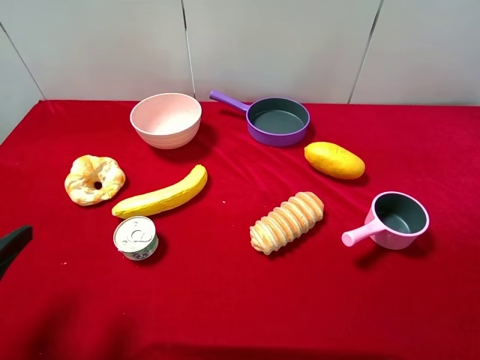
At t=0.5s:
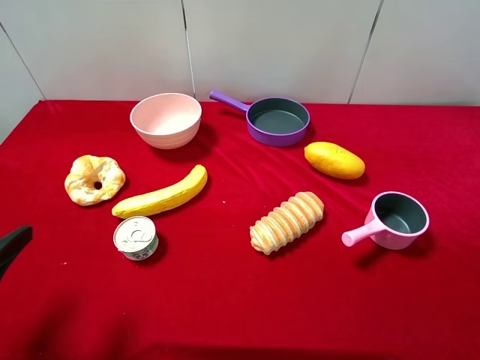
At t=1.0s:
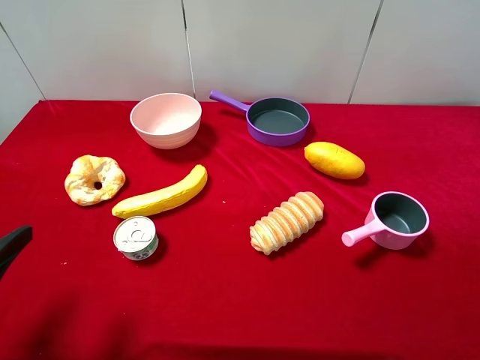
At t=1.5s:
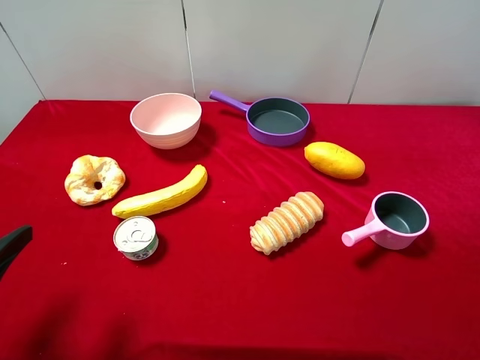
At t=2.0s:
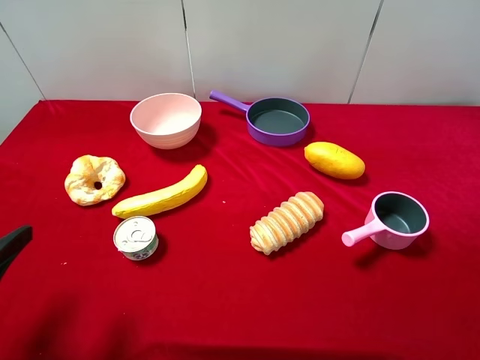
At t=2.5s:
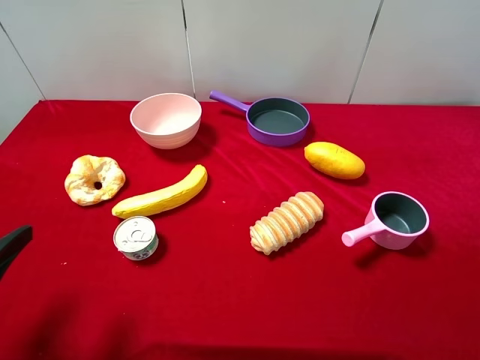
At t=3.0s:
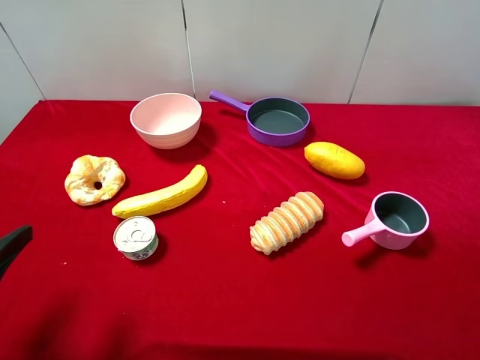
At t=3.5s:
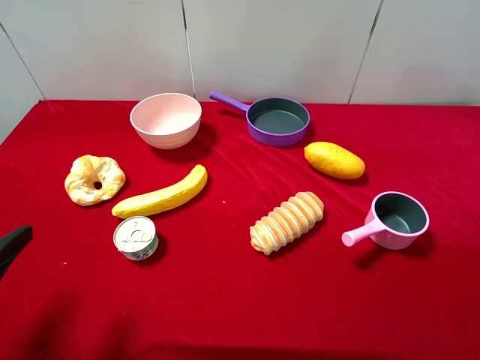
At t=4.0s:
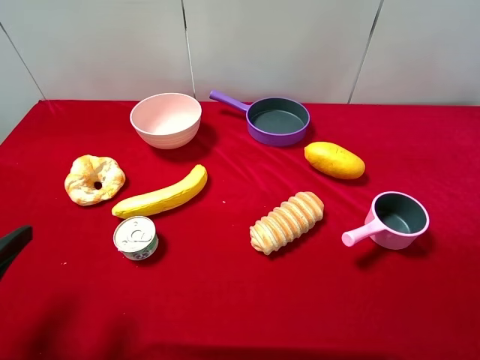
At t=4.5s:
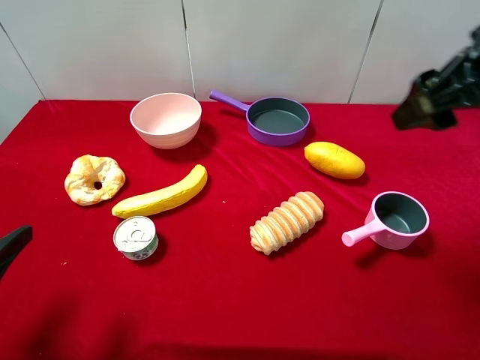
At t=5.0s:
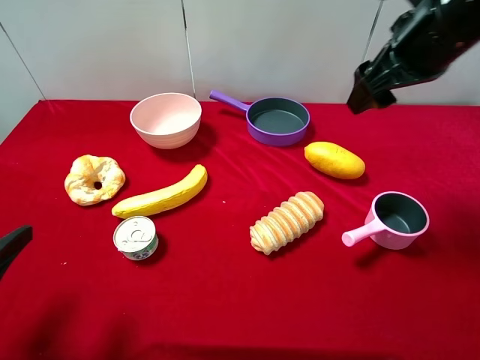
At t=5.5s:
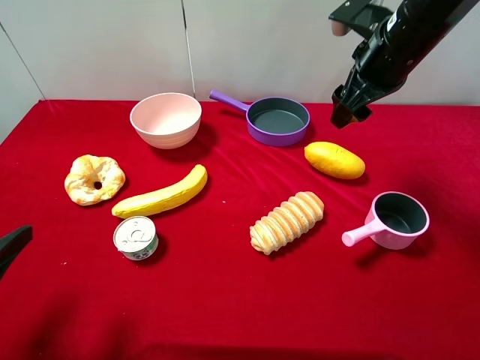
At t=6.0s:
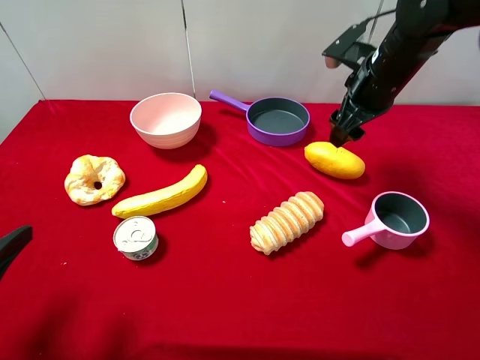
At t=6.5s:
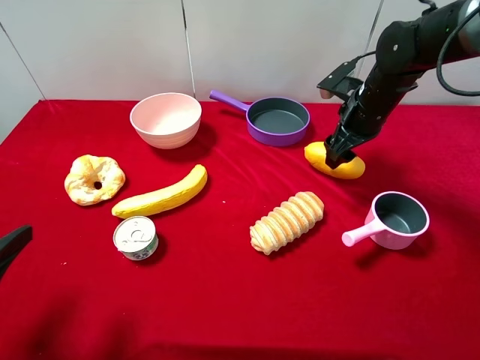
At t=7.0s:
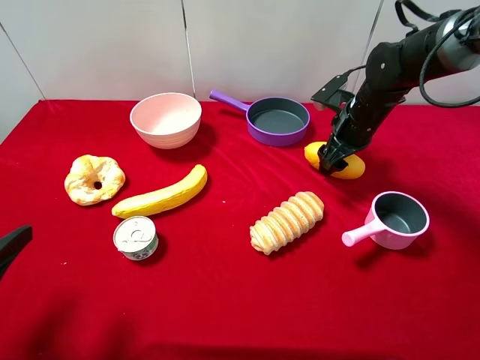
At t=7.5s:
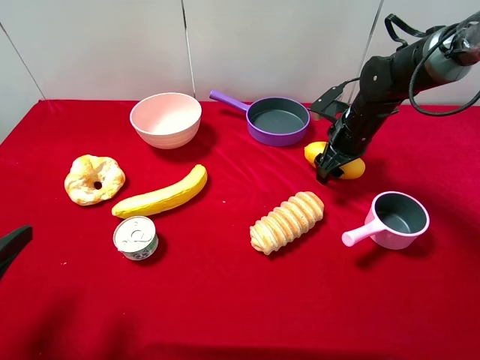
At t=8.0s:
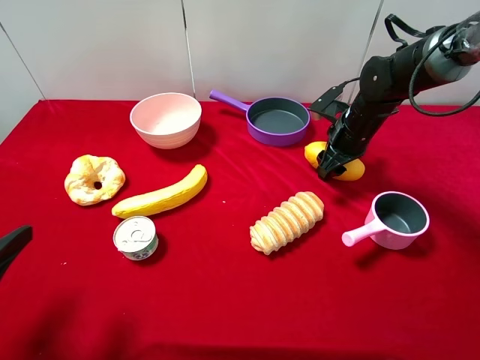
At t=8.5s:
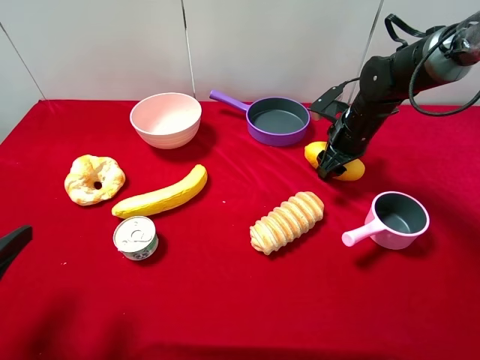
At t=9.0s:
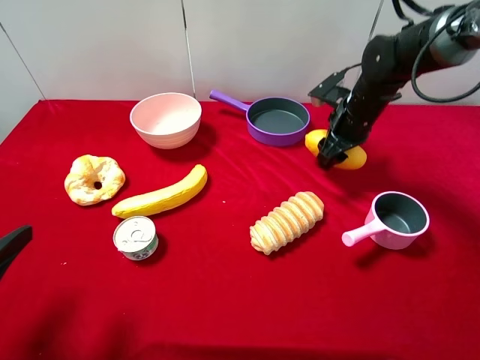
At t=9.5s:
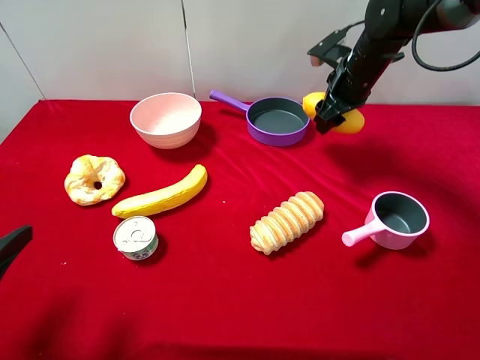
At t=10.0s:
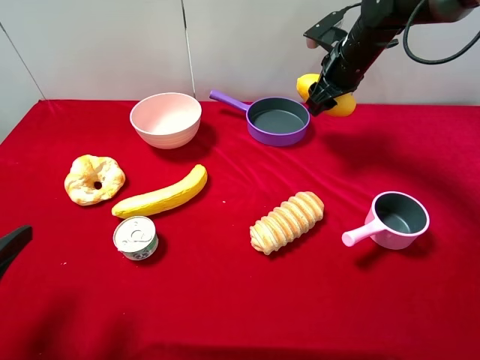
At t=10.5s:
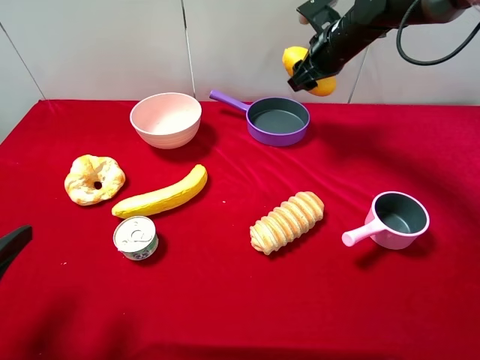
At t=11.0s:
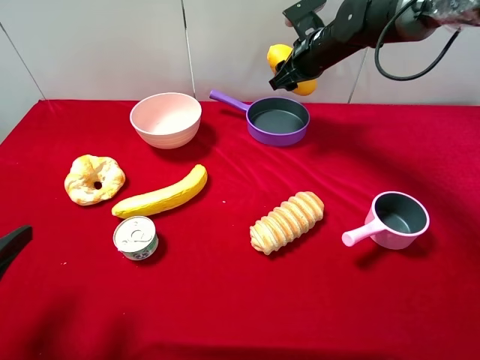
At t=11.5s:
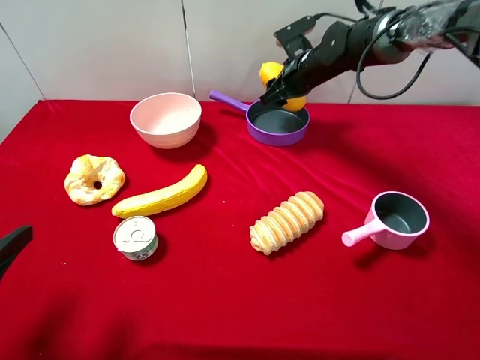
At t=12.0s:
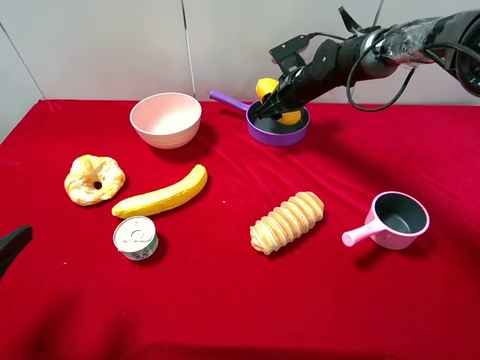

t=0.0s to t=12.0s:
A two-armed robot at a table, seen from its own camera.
Task of the whole recording: pick up an item with a gripper and place it in a random container on the desktop.
t=0.0s to t=2.0s: Both grippers stay about where they are.
t=4.0s to t=6.0s: The right gripper is displaced forward and downward by some 25 cm.
t=6.0s to t=8.0s: The right gripper shifts approximately 10 cm downward, and closes.
t=8.0s to t=10.0s: The right gripper goes approximately 10 cm upward and forward.
t=10.0s to t=12.0s: The right gripper is displaced downward and to the left by approximately 10 cm.

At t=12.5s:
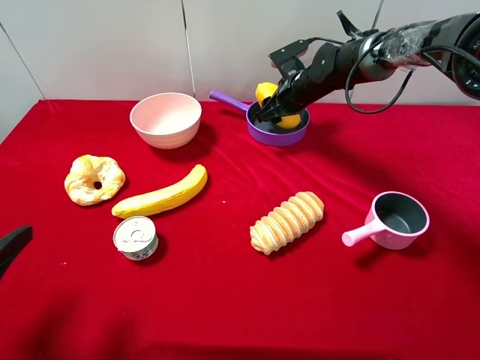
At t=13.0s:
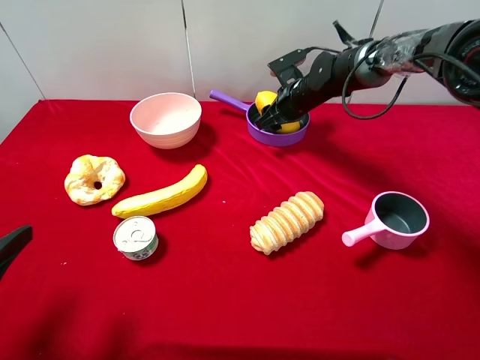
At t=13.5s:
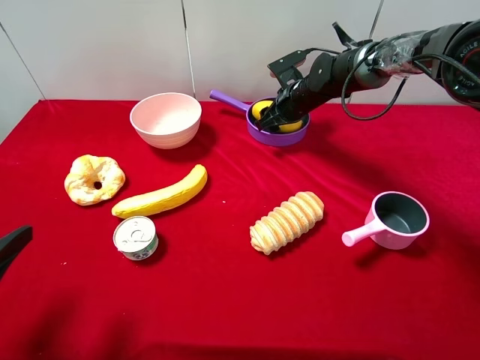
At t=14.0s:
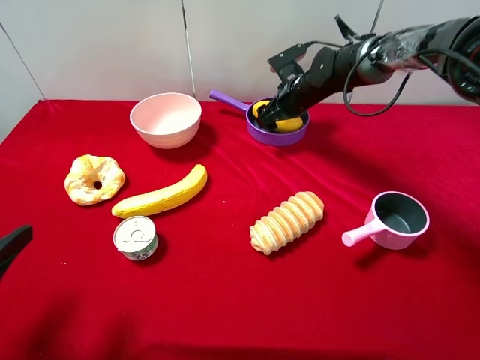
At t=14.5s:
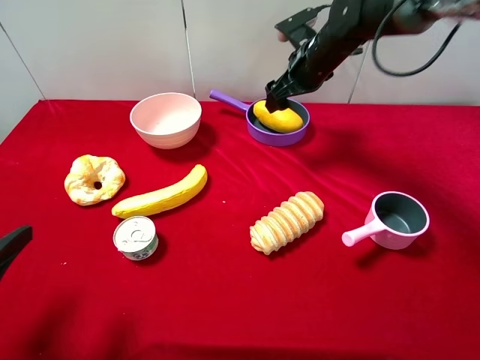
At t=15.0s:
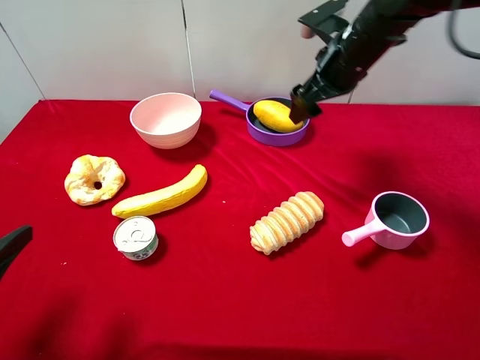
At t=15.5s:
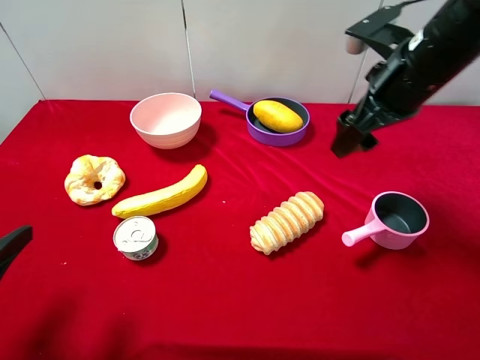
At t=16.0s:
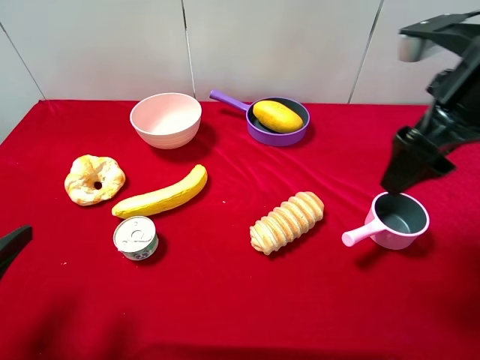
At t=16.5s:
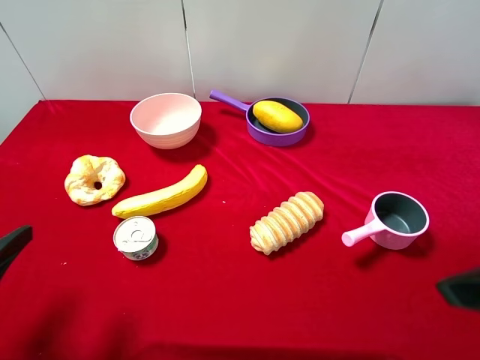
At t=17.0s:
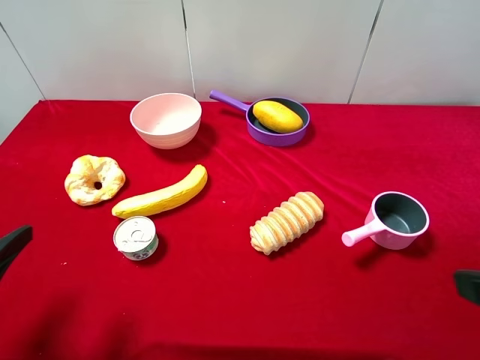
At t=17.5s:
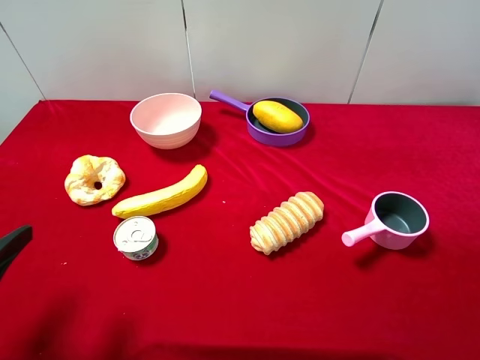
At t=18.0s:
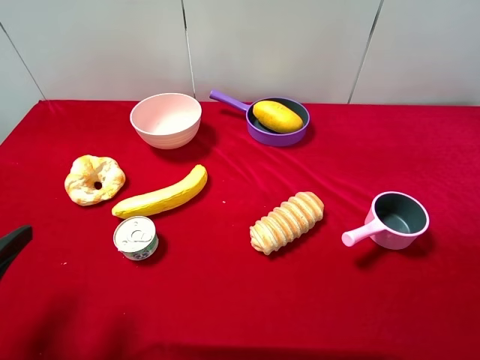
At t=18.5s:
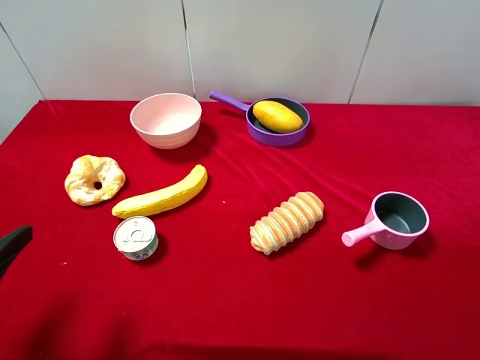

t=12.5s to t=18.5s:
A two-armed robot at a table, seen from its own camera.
Task of the whole recording: pick up an item with a gripper and place it in a random container on the desktop.
t=12.5s to t=14.5s: The right gripper moves upward, roughly 10 cm, and opens.
t=14.5s to t=16.5s: The right gripper goes approximately 35 cm backward.

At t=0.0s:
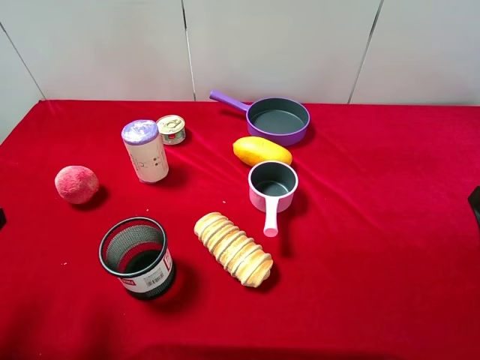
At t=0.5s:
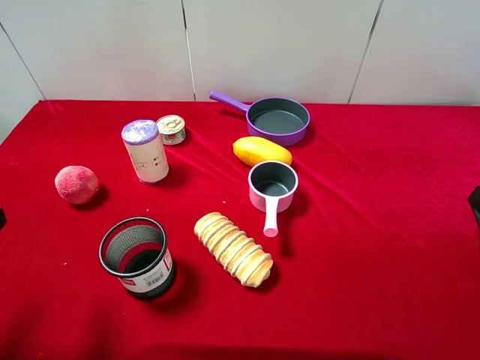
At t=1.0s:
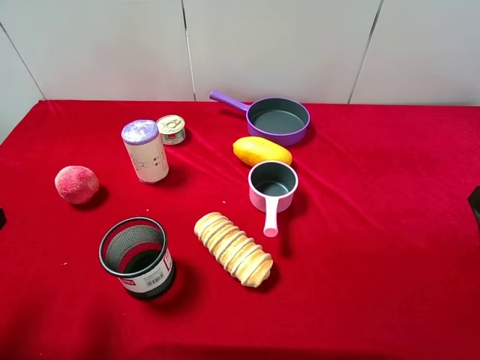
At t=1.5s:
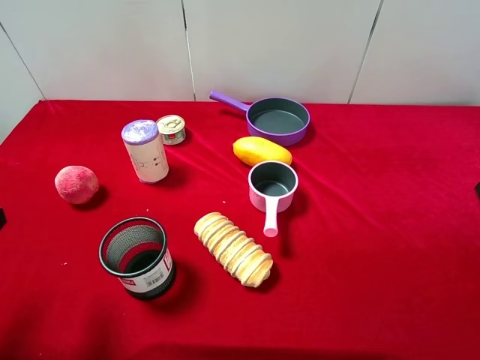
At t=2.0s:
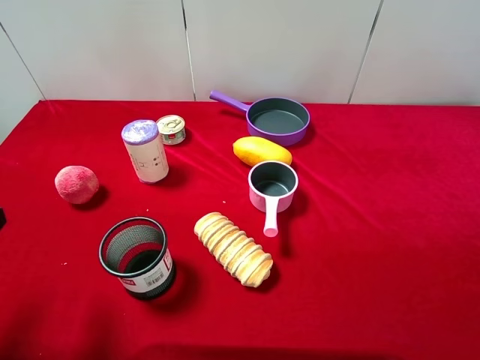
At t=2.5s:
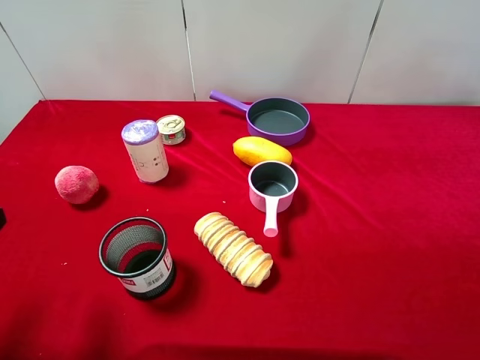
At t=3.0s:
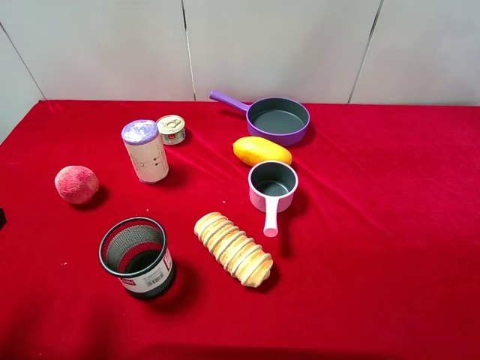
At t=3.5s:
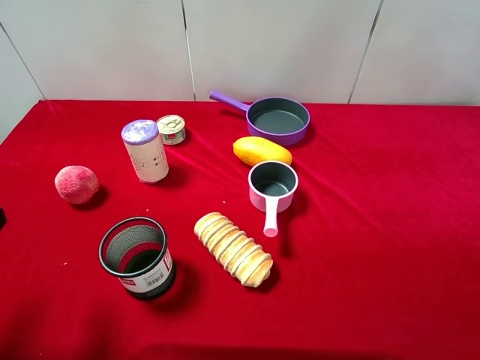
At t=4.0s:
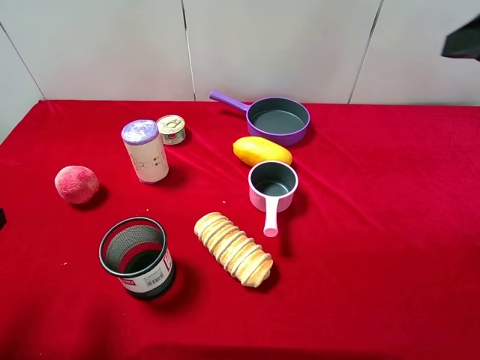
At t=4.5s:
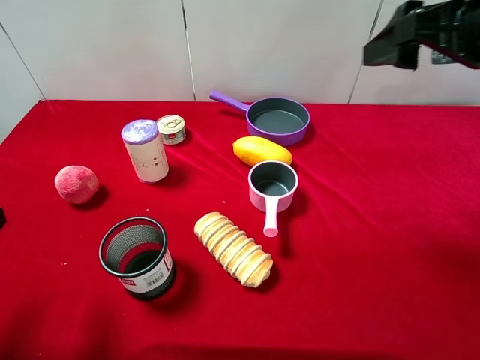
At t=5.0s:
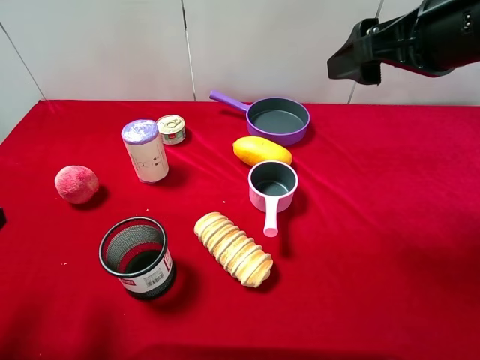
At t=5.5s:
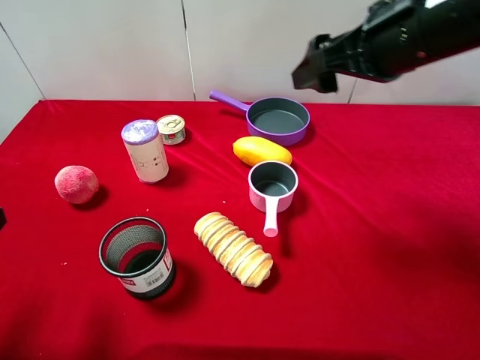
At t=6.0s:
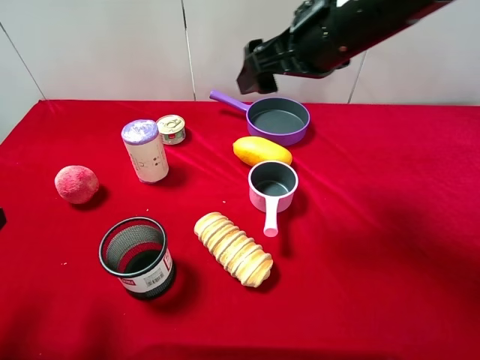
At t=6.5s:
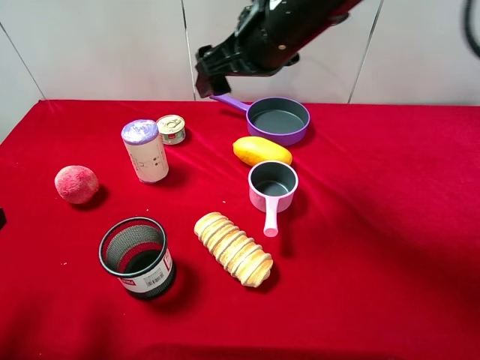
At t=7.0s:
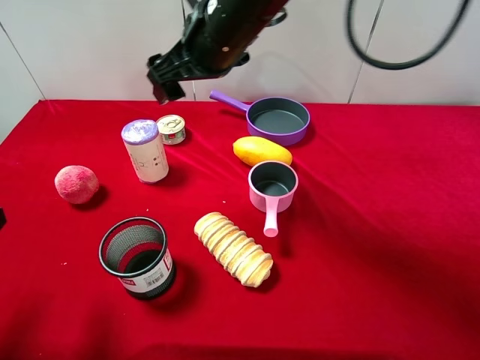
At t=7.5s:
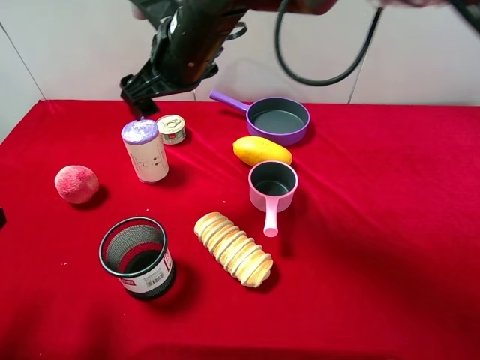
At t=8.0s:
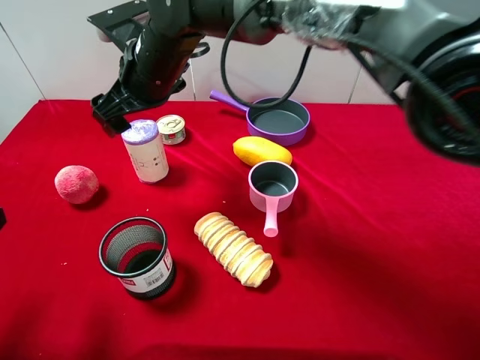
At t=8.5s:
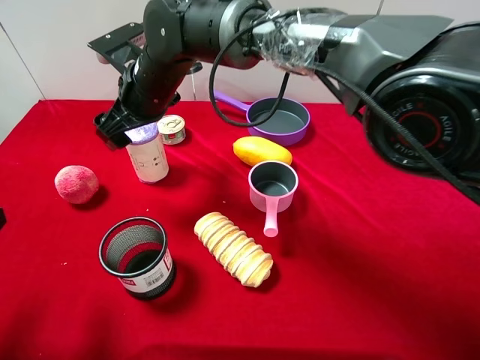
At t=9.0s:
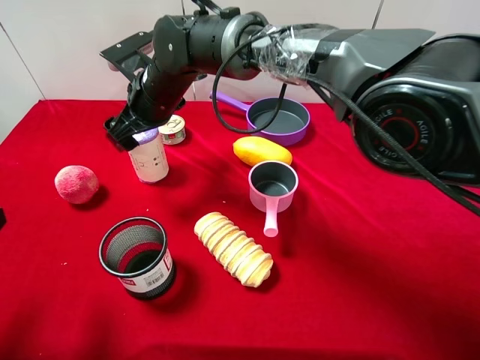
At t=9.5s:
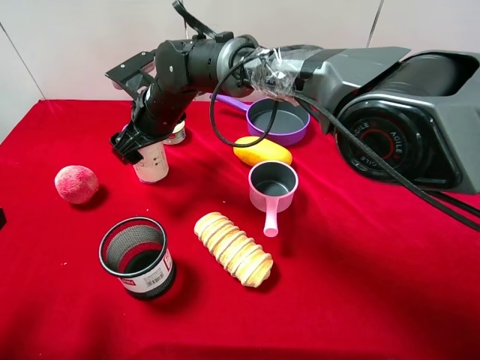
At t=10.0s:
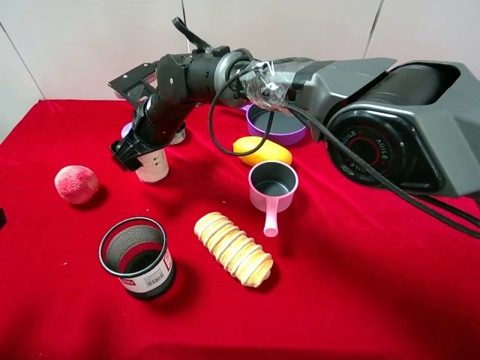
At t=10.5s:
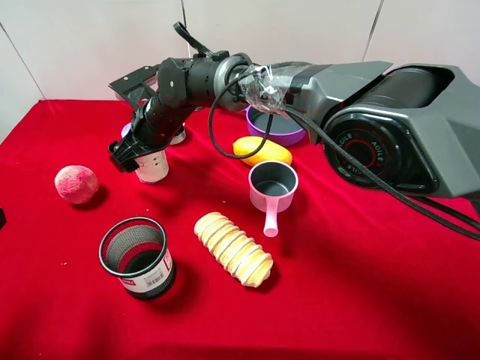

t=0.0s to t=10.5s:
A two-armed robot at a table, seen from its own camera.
Task of the whole recording: pick up an item with a gripper and place it in a random container on the desktop.
t=2.0s to t=4.0s: The right gripper is displaced forward and upward by approximately 15 cm.
t=4.0s to t=6.5s: The right gripper goes approximately 25 cm to the left and forward.
t=6.5s to t=8.5s: The right gripper travels to the left and downward by some 20 cm.
t=8.5s to t=10.5s: The right gripper is displaced downward by roughly 5 cm.
